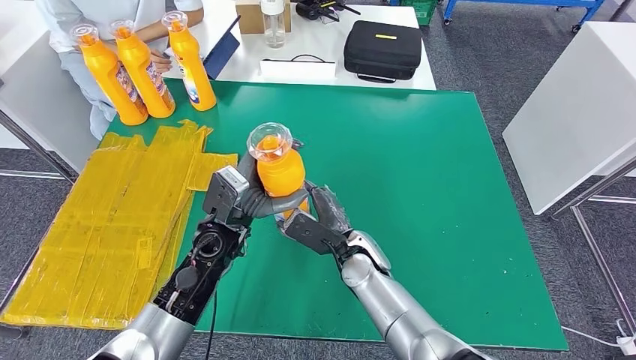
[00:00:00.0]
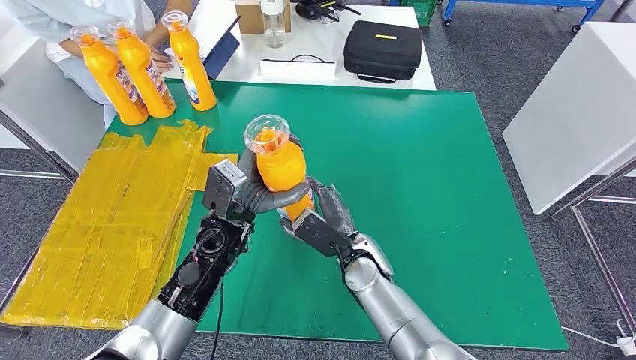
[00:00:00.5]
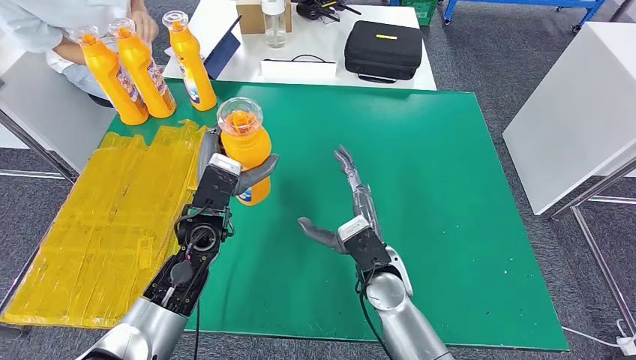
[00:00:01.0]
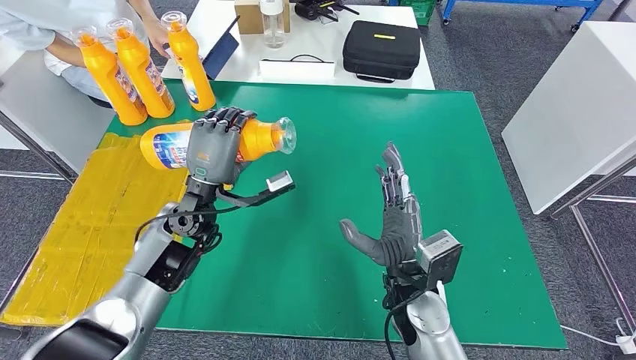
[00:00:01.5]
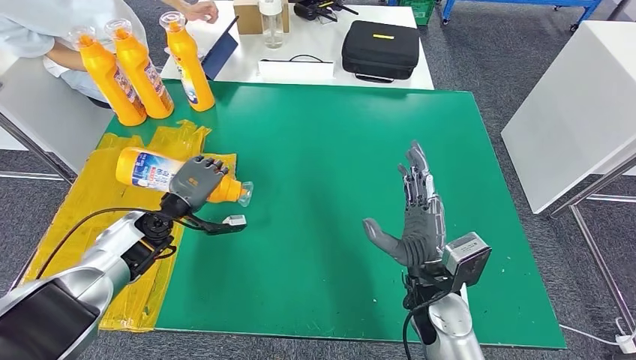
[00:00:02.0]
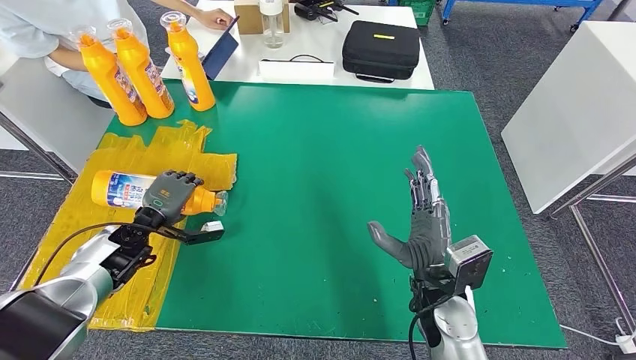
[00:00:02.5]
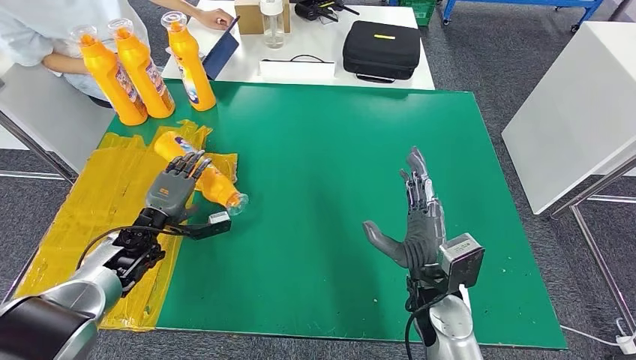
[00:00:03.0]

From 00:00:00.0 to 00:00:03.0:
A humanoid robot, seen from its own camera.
Step, from 00:00:00.0 to 00:00:03.0: Flip the fast-moving consumer goods bottle to the front side.
